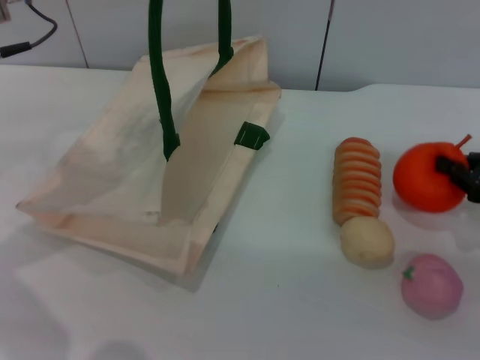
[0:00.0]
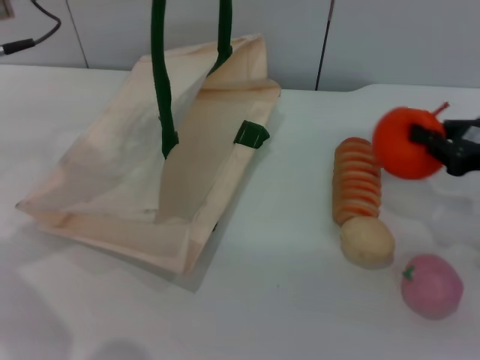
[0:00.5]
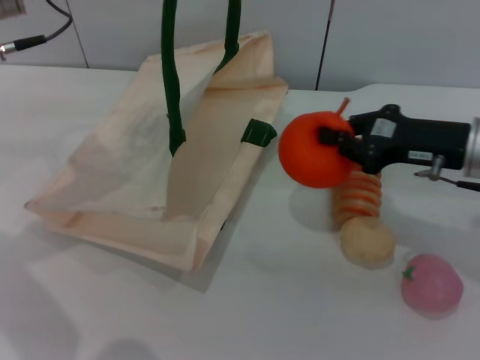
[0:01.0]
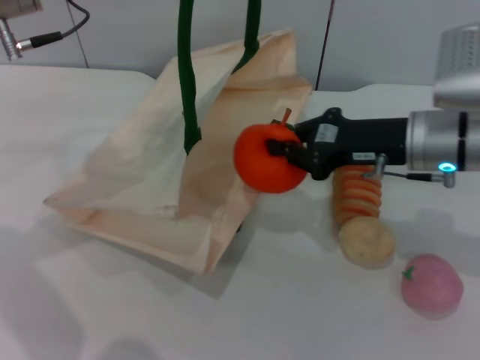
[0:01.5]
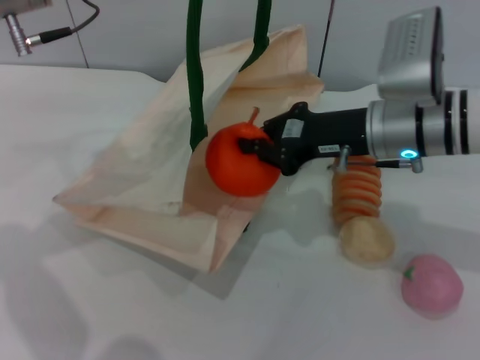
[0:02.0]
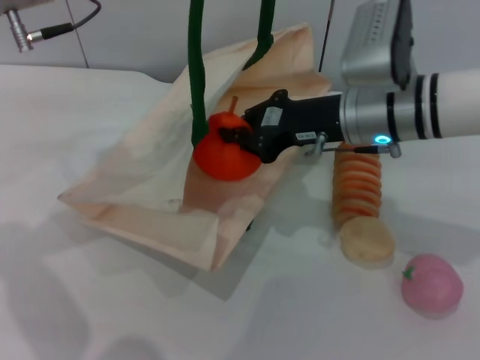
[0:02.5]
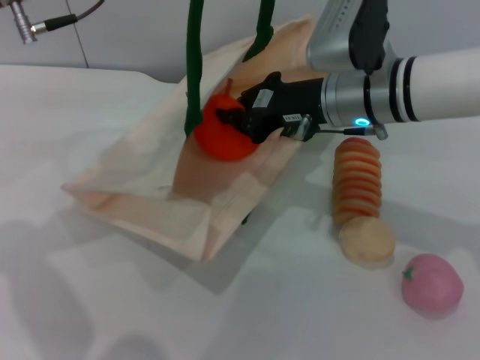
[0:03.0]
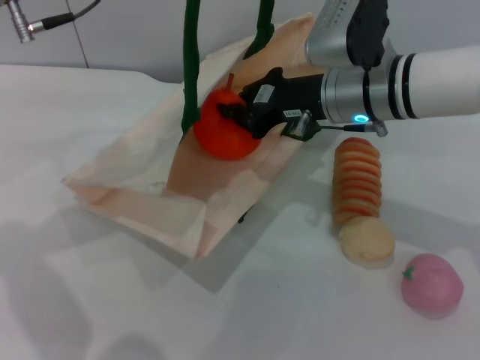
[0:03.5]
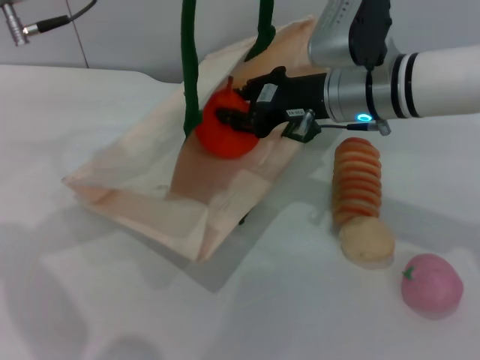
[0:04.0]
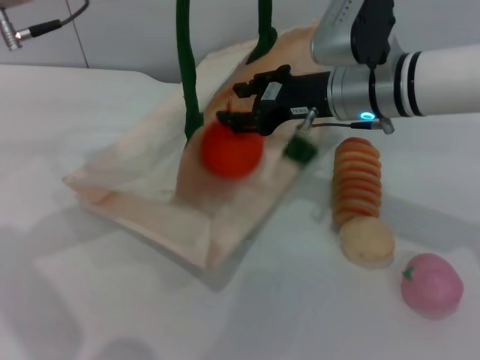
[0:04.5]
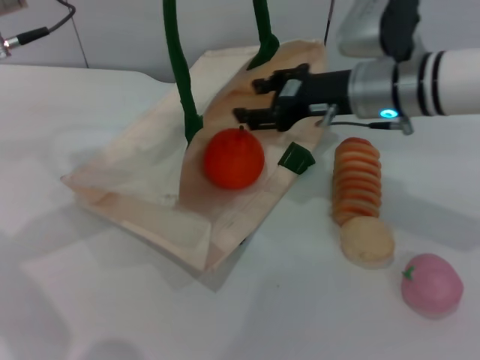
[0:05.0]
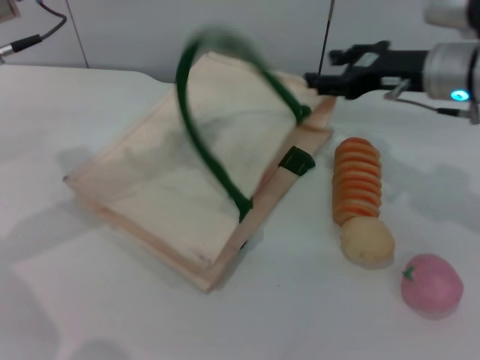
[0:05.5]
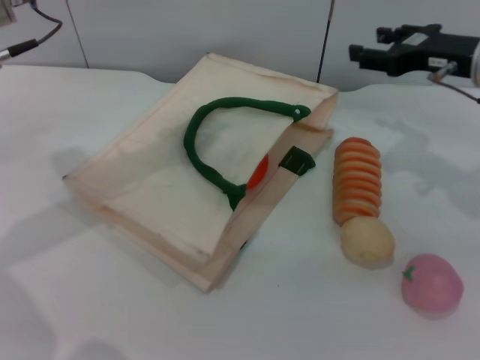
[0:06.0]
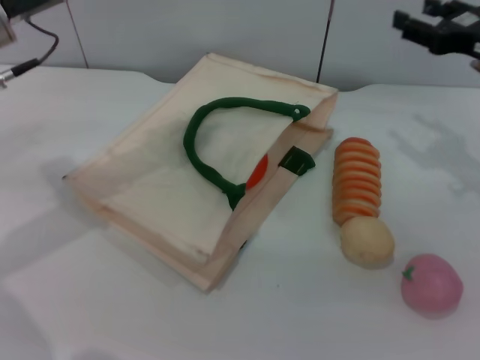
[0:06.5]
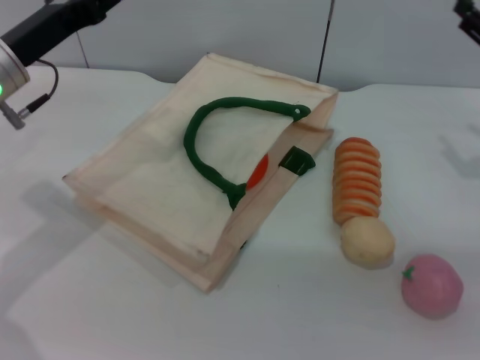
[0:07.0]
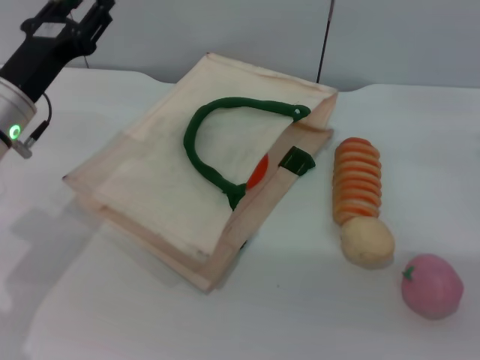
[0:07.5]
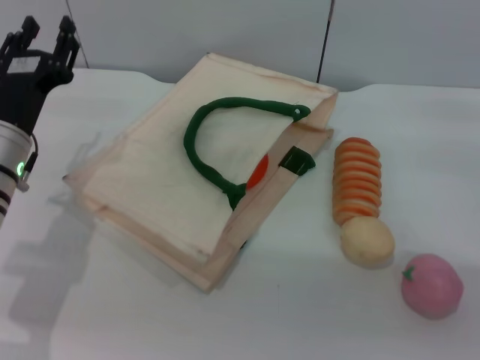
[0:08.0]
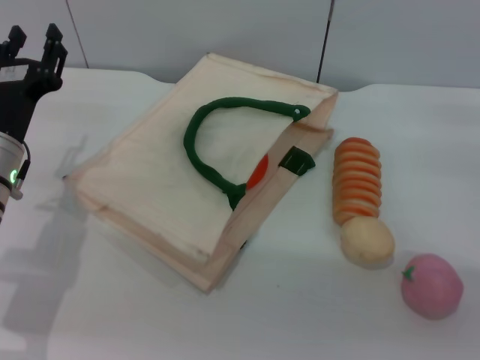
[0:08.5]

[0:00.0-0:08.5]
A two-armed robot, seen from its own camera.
Task of the whole recording: pick up the orange from the table and place it in the white handbag.
Step, 0:00.5 to 0:04.5: Place the orange into the woven bag with the right gripper.
Step, 0:05.0 to 0:05.5: Lower the woven bag with the left gripper to close it.
0:00.0 to 0:02.0: The right gripper heads to the left, covering some 20 cm.
0:02.0 to 0:04.0: The right gripper moves some 5 cm.
0:04.0 to 0:06.5: The left gripper is displaced downward by approximately 5 cm, and opens up; the right gripper goes about 20 cm to the right, and opens up.
0:06.5 to 0:08.5: The left gripper goes some 15 cm downward and backward. Meanwhile the right gripper heads downward, backward and to the right, covering about 10 cm.
